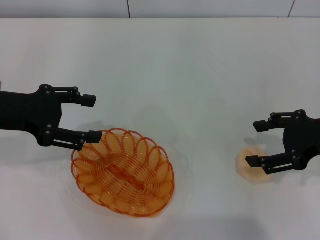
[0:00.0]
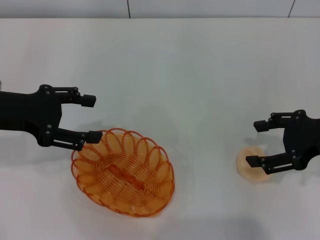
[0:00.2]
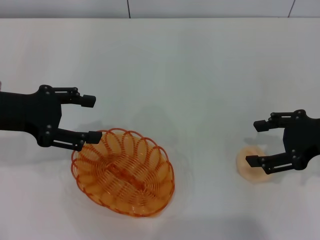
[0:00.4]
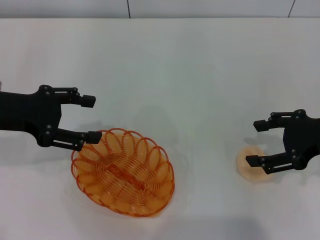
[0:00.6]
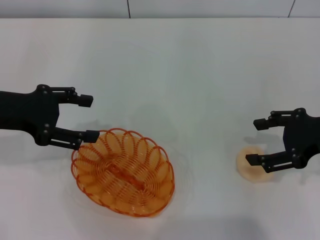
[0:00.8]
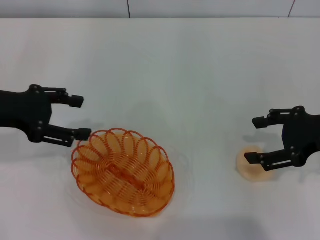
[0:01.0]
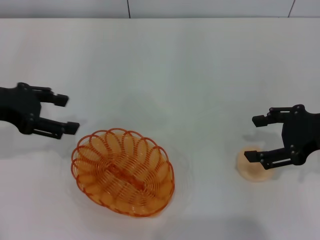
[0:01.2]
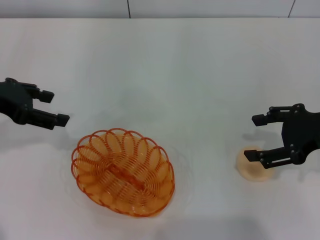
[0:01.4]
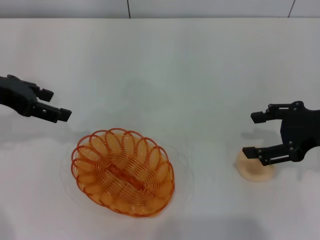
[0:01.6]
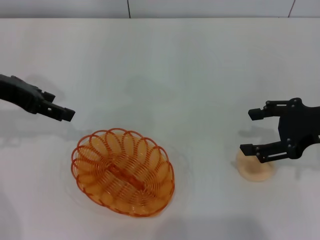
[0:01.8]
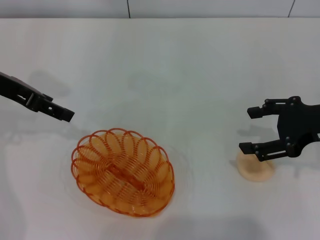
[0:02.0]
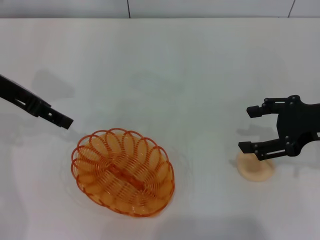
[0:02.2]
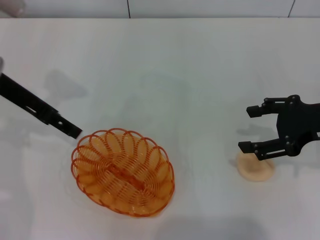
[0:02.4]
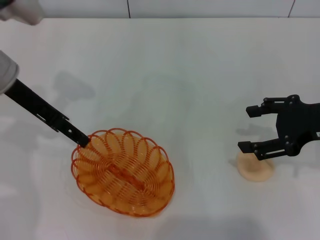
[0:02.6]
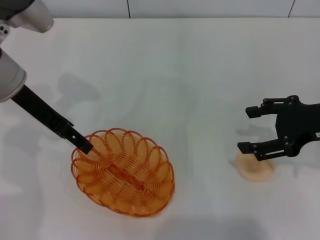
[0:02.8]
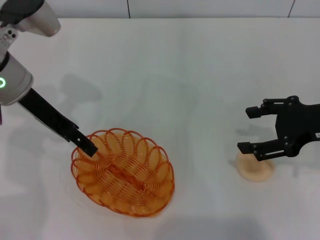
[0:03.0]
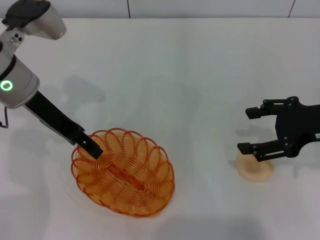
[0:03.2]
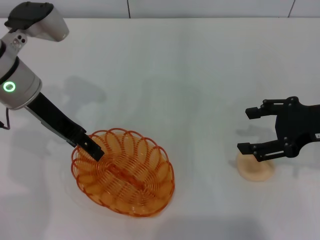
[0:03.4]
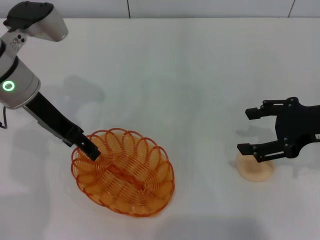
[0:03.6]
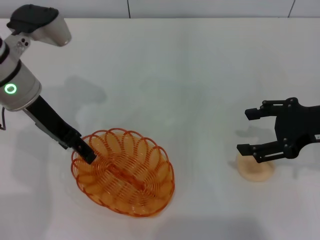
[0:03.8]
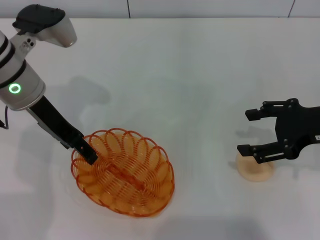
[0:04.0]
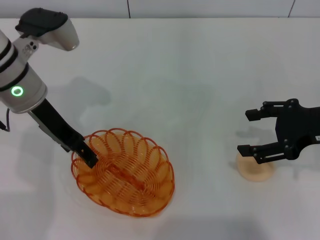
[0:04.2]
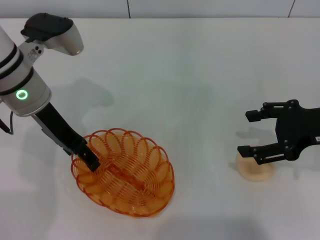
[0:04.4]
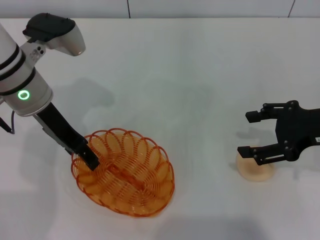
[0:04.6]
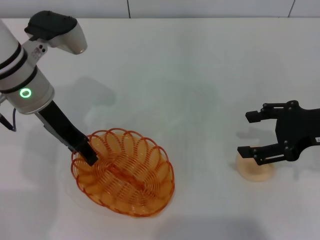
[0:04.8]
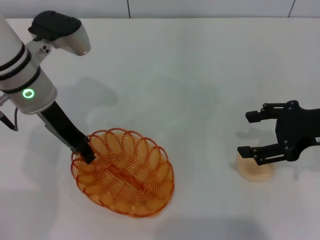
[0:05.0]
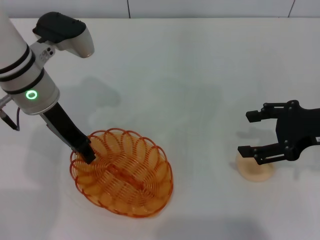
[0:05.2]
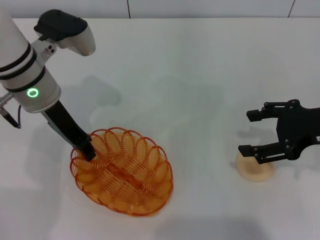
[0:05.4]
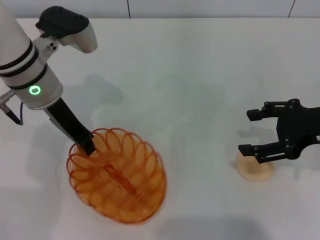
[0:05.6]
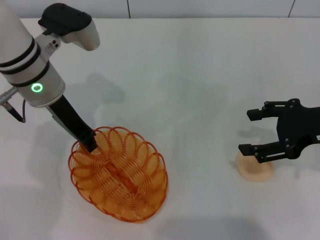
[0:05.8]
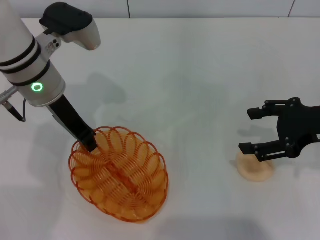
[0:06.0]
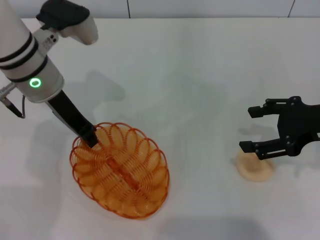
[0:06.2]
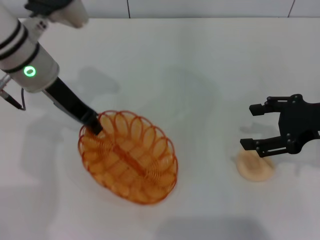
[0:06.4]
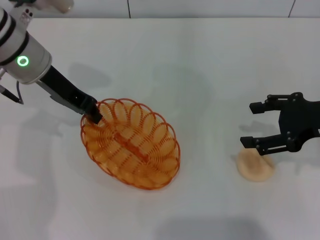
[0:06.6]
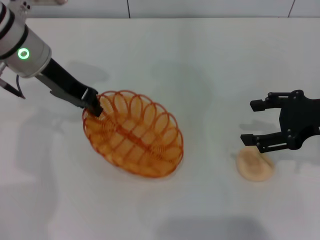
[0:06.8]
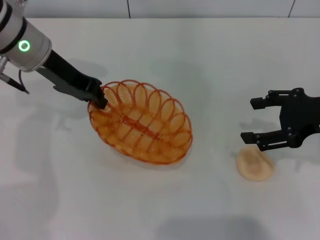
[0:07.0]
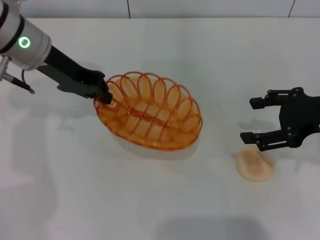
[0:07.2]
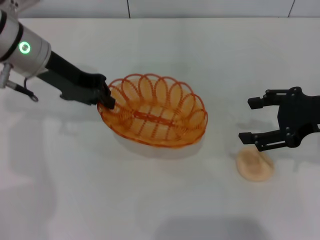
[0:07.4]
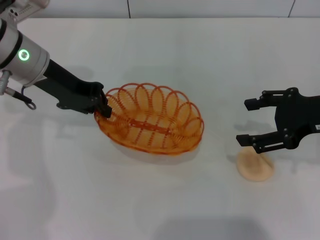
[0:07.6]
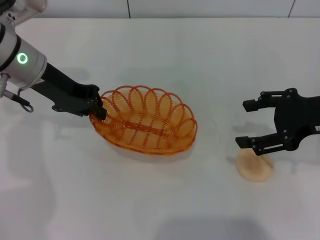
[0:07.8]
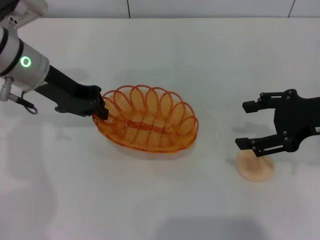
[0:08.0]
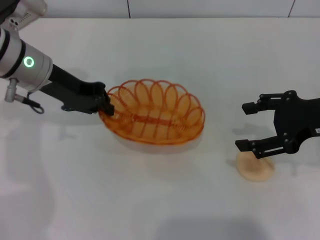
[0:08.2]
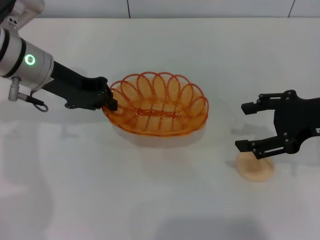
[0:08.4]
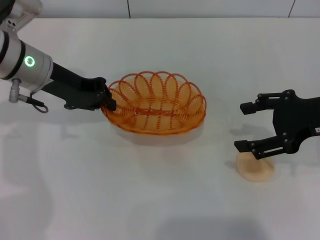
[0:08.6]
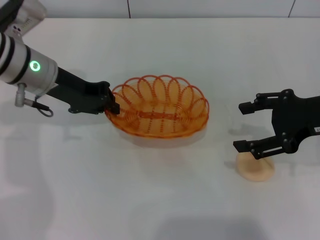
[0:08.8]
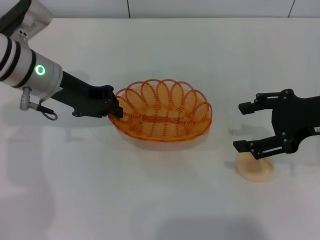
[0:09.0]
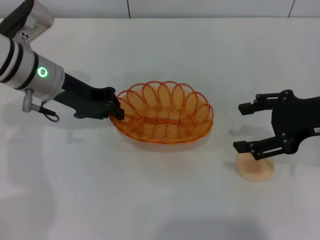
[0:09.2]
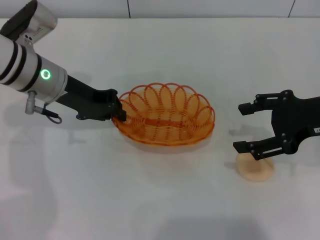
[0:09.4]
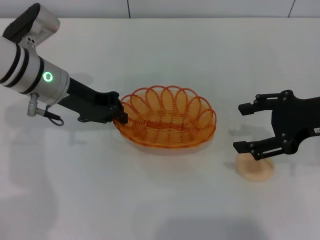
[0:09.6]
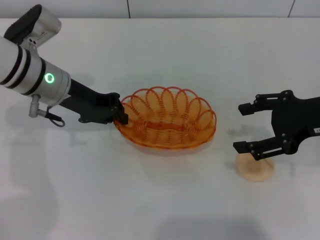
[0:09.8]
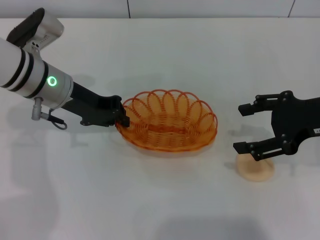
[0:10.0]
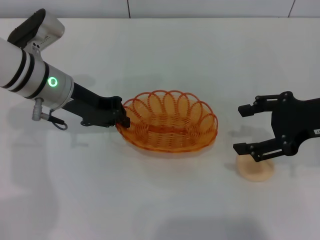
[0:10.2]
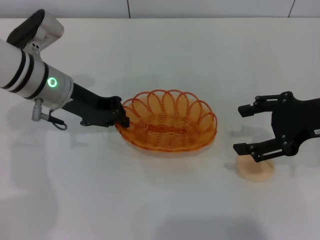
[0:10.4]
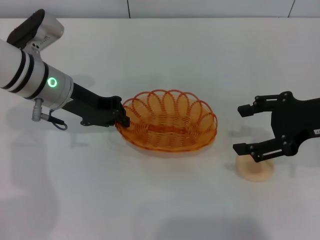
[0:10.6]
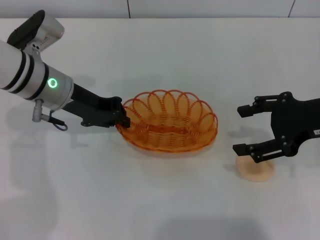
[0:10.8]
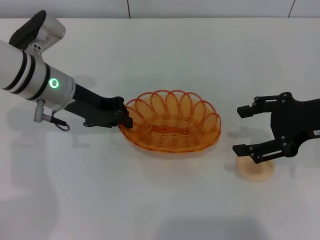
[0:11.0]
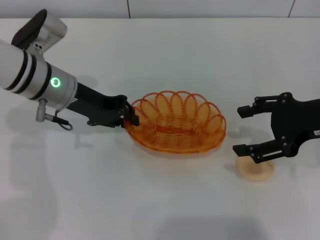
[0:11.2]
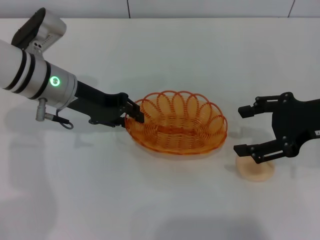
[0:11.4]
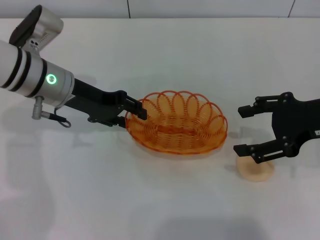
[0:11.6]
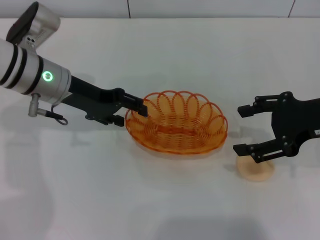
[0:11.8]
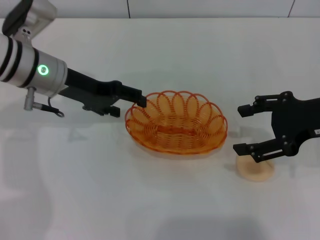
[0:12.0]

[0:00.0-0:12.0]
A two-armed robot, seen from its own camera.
Step, 0:00.0 to 0:07.0: Pick up the basket with the left gripper.
Step, 0:07.2 to 0:11.8: Place the basket in the center of view with the left gripper.
0:00.0 to 0:01.6: The left gripper changes place by approximately 5 cm.
0:01.6 to 0:03.0: The left gripper heads to the right, covering roughly 10 cm.
0:03.0 to 0:04.4: The grippers move only a little.
0:04.4 to 0:06.0: The left gripper closes.
0:07.6 to 0:10.4: The grippers stay close to where they were, moving slightly.
0:10.4 to 0:12.0: The left gripper opens.

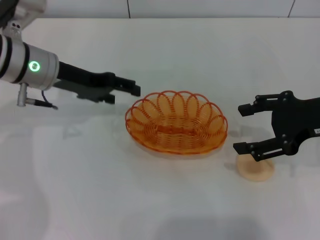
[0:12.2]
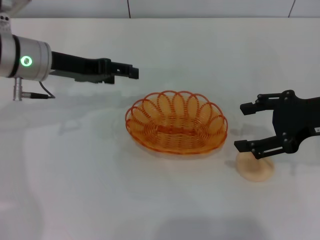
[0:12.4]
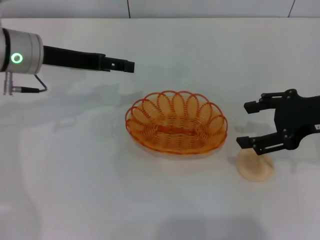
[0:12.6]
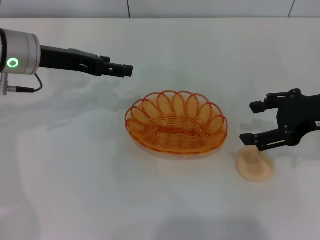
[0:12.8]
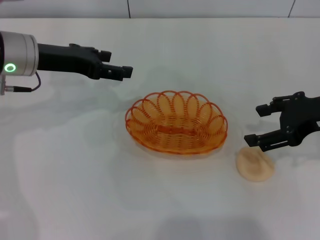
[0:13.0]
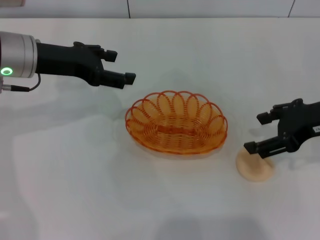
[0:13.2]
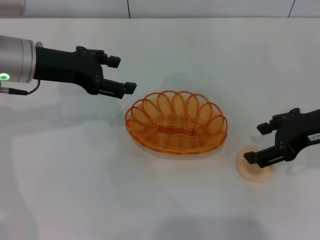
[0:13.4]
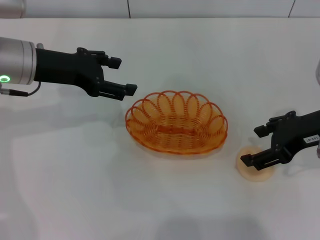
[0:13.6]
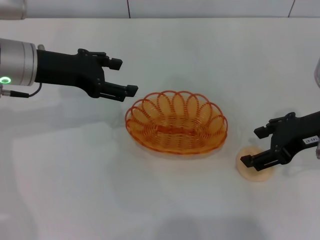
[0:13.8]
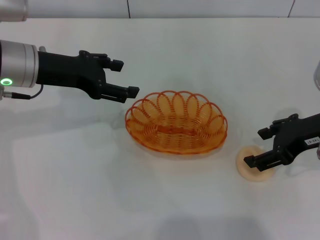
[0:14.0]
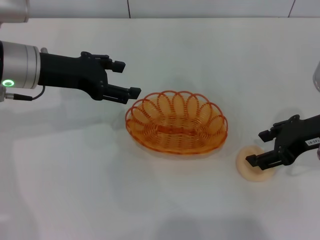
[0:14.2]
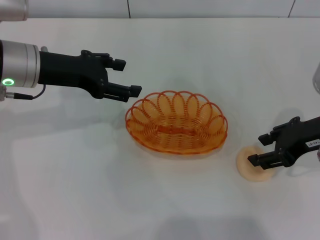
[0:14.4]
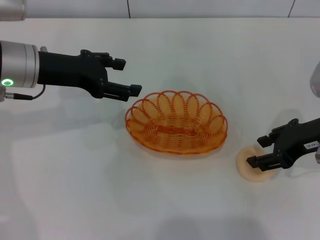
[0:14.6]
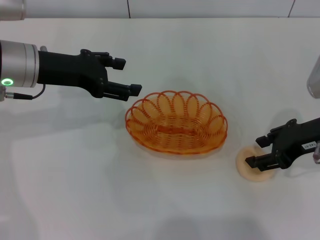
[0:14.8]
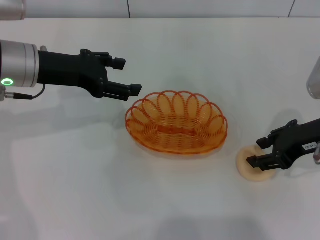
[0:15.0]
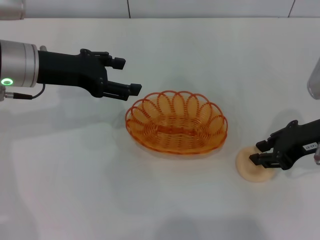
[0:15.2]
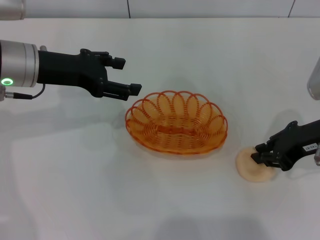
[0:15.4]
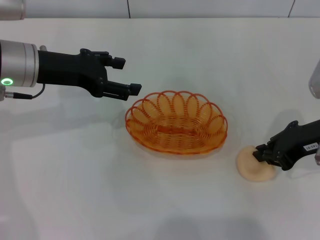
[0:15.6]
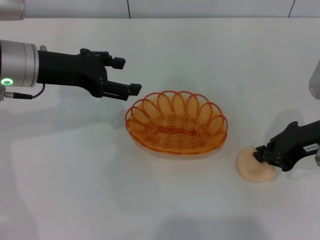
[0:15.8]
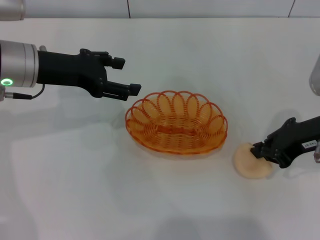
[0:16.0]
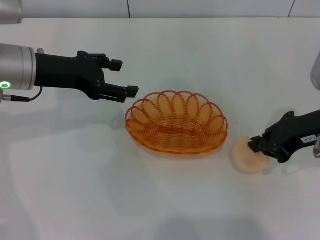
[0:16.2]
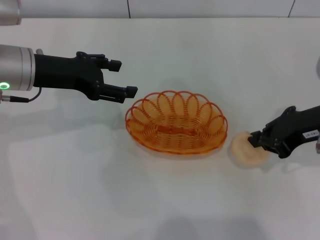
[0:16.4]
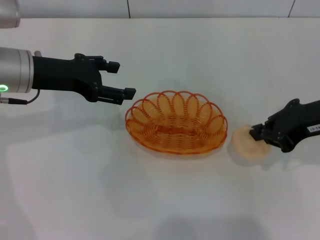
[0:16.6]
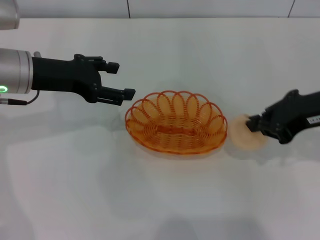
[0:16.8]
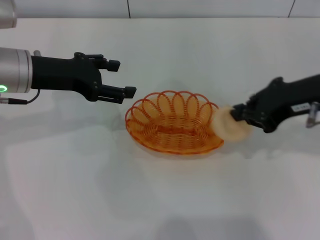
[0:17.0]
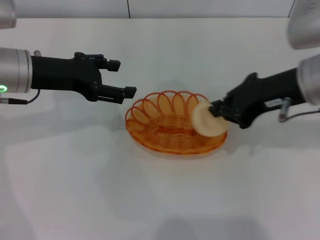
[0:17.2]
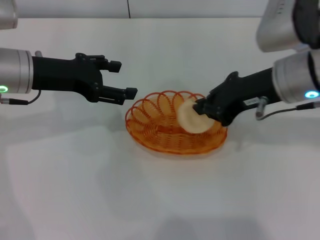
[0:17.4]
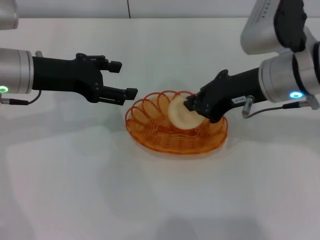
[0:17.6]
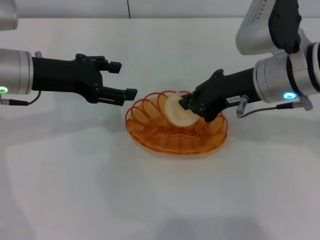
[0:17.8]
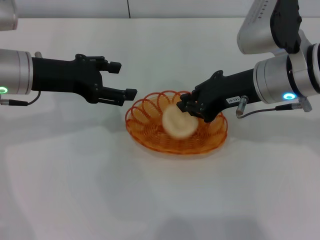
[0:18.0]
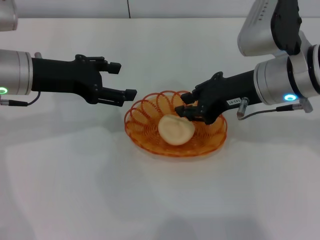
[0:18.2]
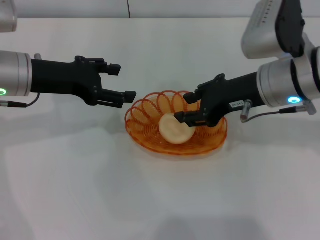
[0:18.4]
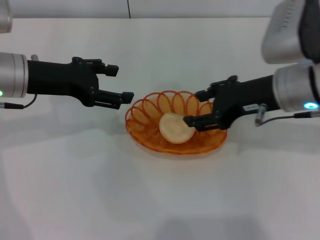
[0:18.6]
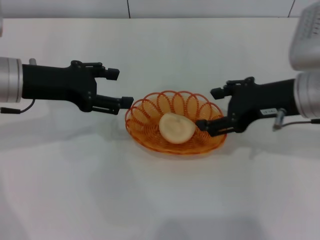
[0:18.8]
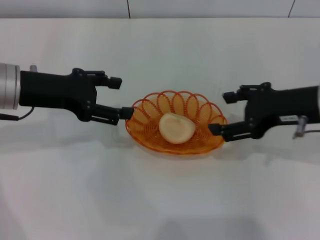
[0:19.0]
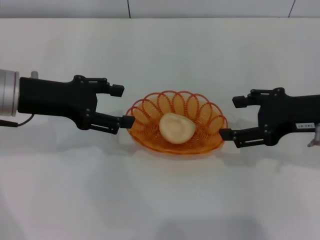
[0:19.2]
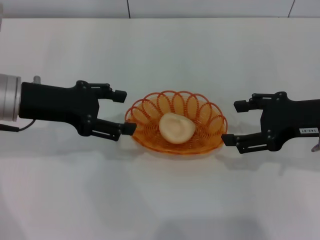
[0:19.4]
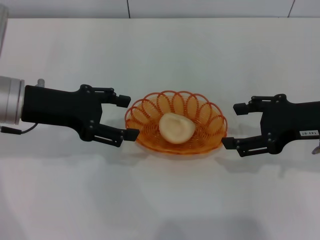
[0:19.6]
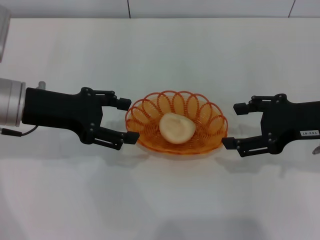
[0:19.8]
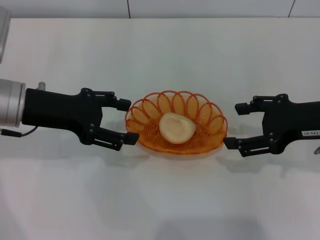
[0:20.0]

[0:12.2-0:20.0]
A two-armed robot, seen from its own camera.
Step, 0:12.2 to 0:16.6: Pick up the egg yolk pastry with the right gripper.
Step, 0:17.0 to 0:18.6: Place the egg yolk pastry into the basket with the right gripper.
0:13.8 to 0:15.4: The right gripper closes.
0:15.4 to 0:16.8: The right gripper travels upward by some 5 cm, and closes.
0:16.8 to 0:18.4: The right gripper travels to the left by some 10 cm, and opens its fingers.
0:18.4 to 0:20.0: The right gripper heads to the right and backward, covering approximately 10 cm, and opens up.

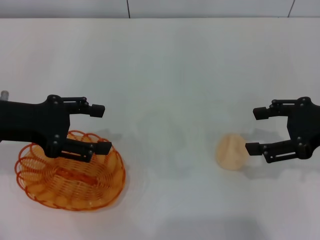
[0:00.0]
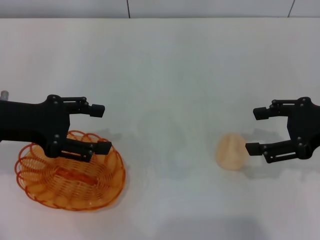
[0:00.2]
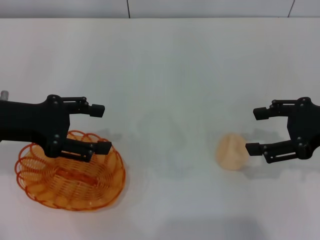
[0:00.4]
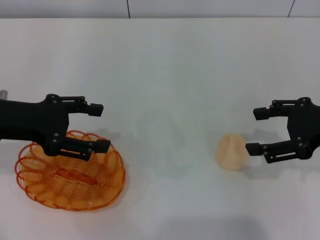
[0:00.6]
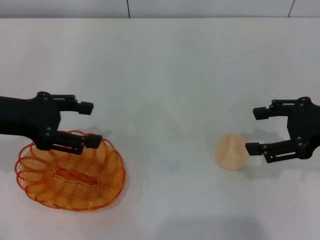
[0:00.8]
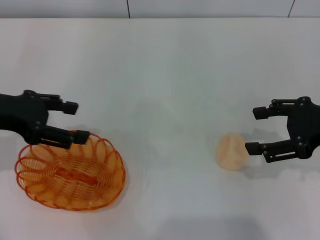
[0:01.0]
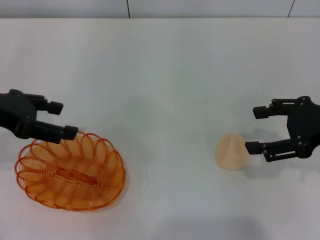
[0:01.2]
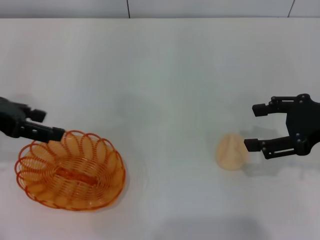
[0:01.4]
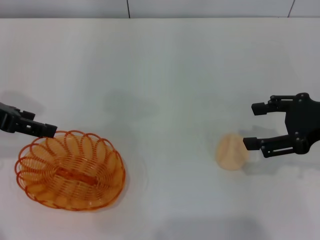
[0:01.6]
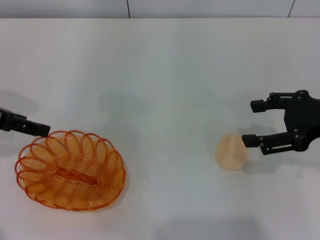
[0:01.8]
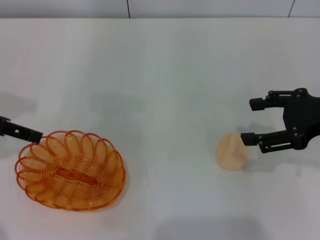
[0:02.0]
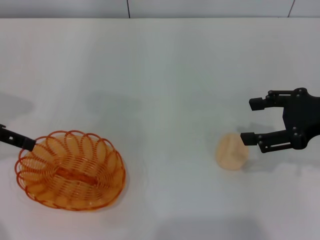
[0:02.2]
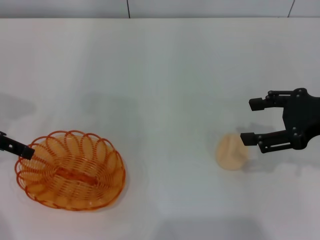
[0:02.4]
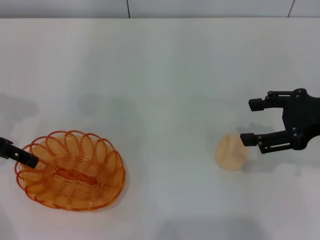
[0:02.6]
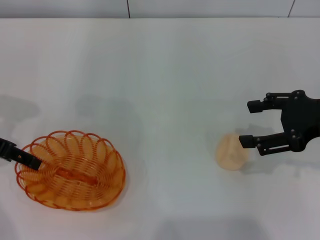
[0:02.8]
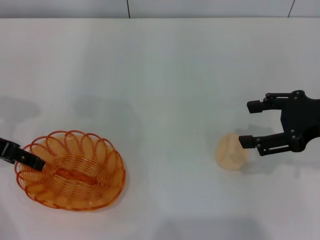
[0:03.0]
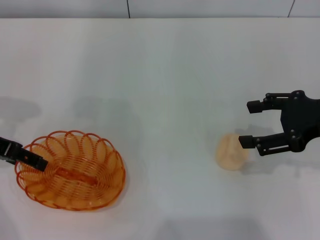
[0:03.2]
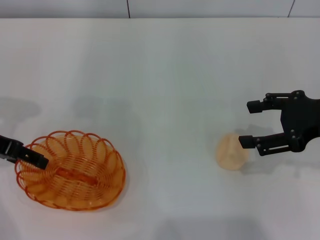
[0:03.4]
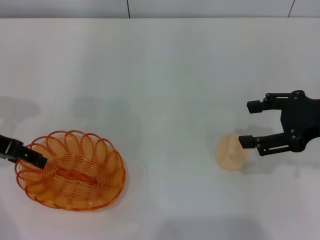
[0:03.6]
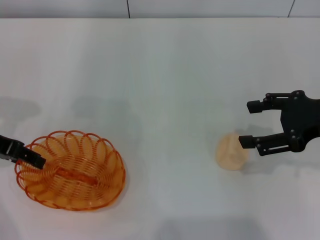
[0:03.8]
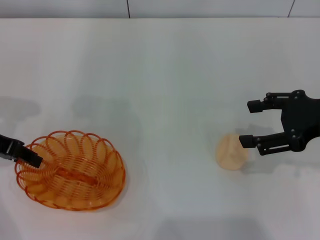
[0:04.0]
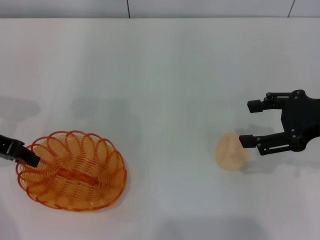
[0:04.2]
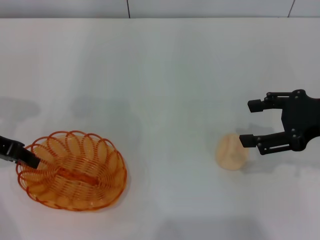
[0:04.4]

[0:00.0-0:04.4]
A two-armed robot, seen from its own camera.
0:03.0 to 0:04.4: The left gripper closes its fingers.
